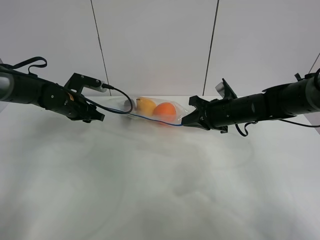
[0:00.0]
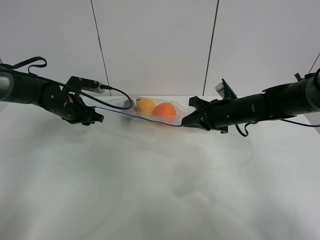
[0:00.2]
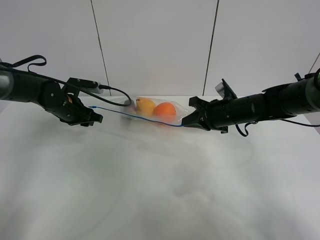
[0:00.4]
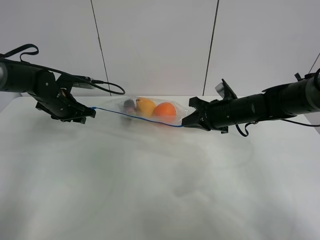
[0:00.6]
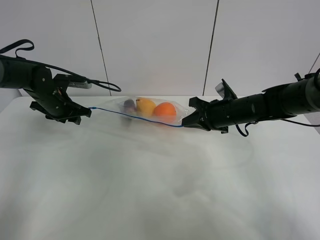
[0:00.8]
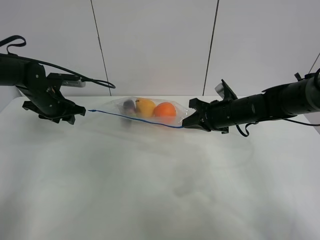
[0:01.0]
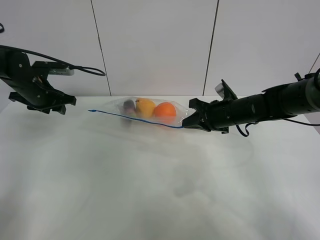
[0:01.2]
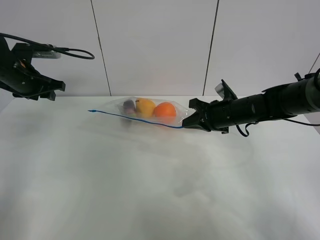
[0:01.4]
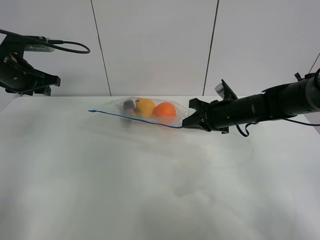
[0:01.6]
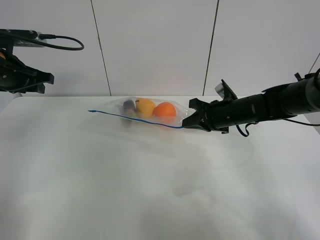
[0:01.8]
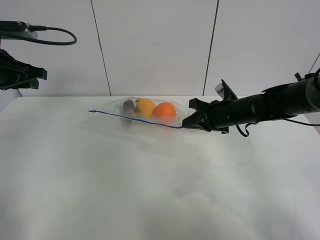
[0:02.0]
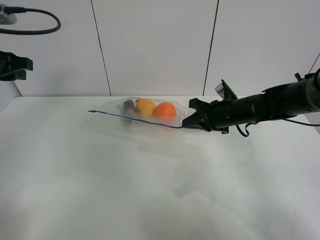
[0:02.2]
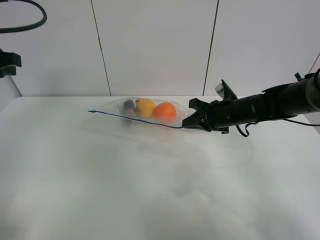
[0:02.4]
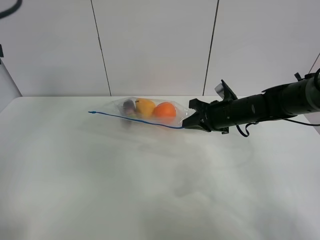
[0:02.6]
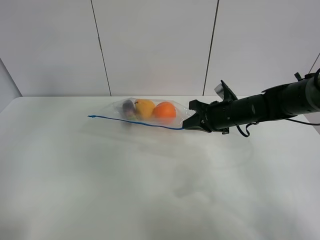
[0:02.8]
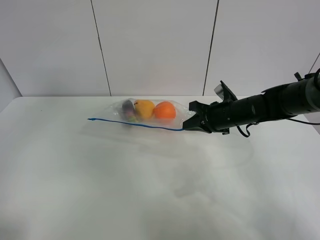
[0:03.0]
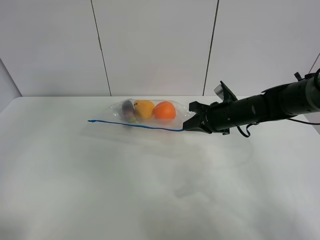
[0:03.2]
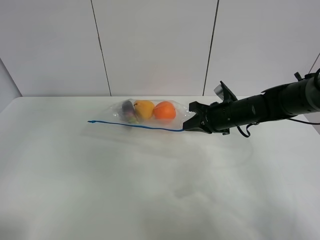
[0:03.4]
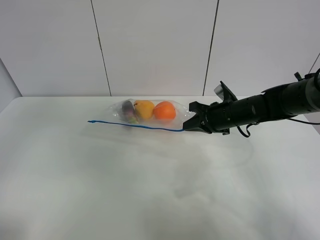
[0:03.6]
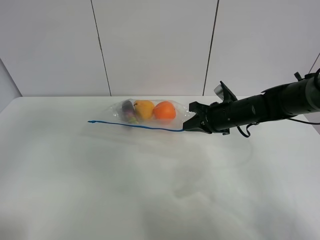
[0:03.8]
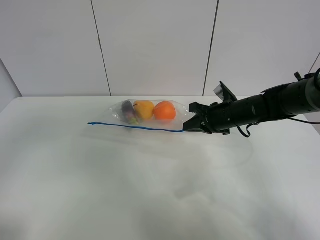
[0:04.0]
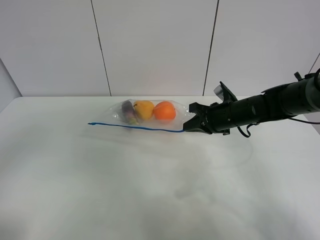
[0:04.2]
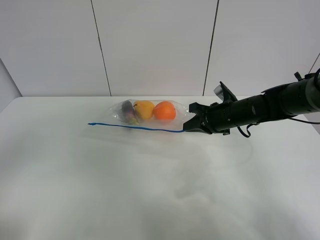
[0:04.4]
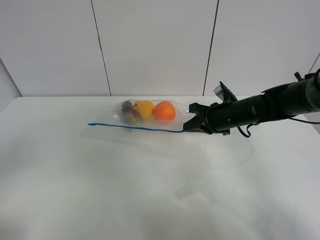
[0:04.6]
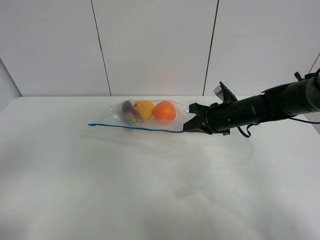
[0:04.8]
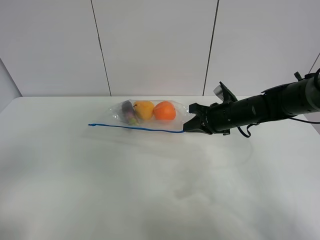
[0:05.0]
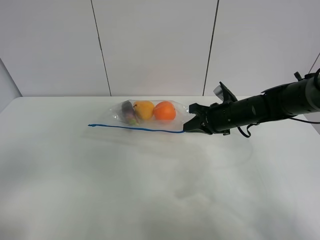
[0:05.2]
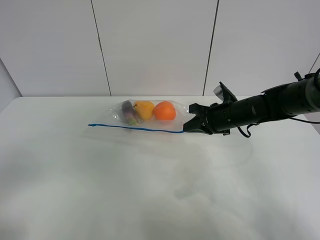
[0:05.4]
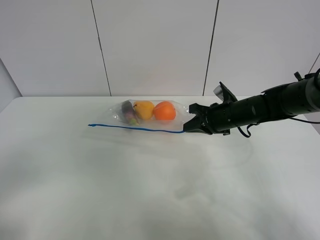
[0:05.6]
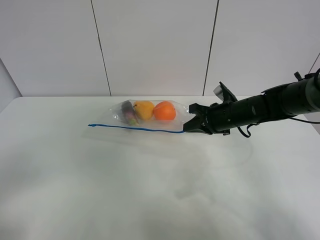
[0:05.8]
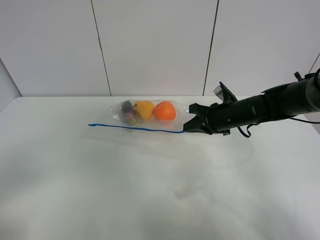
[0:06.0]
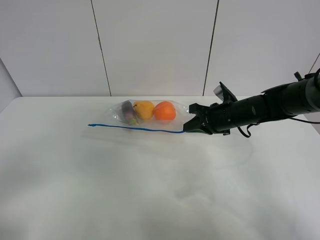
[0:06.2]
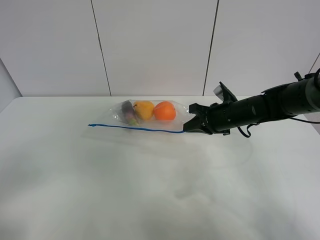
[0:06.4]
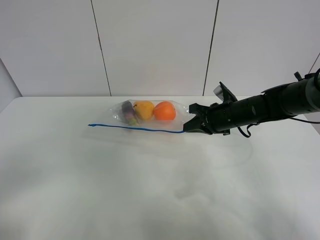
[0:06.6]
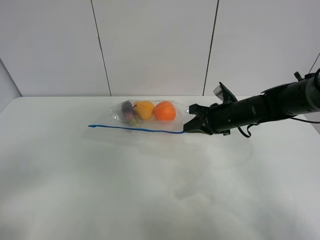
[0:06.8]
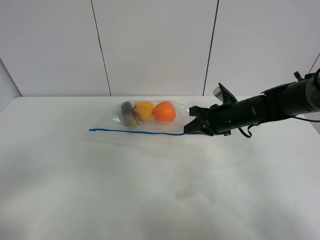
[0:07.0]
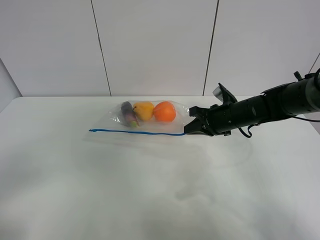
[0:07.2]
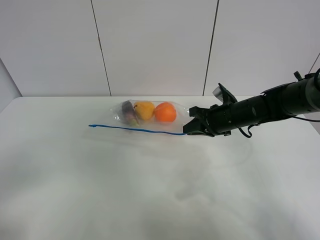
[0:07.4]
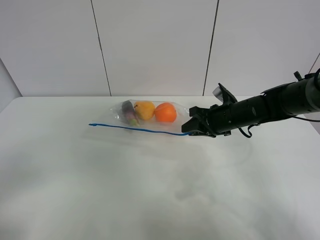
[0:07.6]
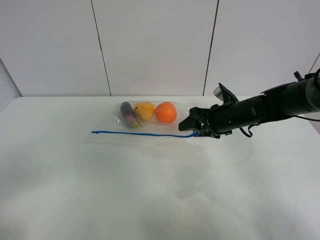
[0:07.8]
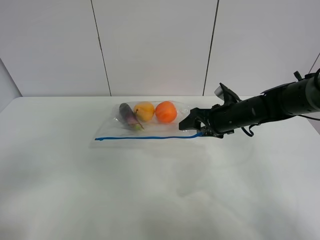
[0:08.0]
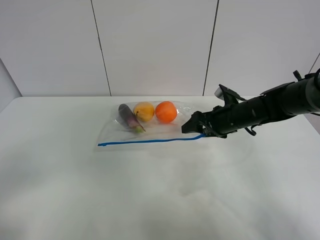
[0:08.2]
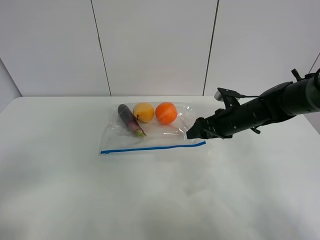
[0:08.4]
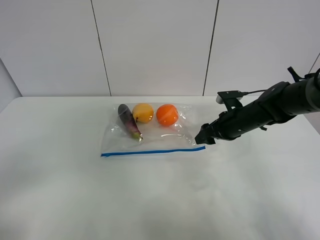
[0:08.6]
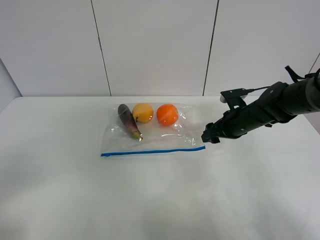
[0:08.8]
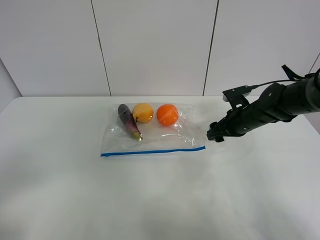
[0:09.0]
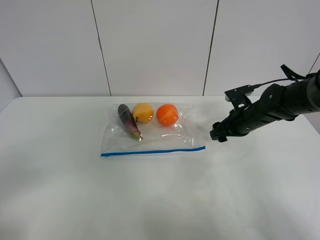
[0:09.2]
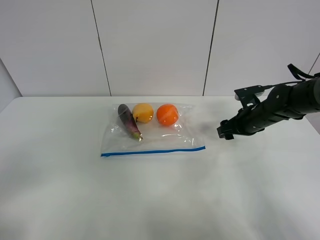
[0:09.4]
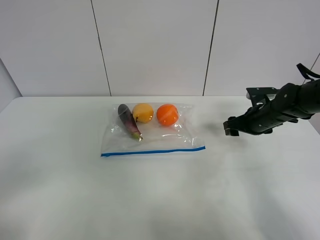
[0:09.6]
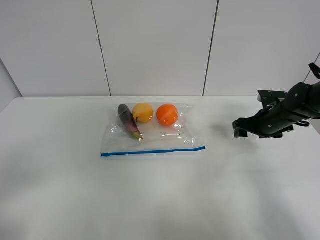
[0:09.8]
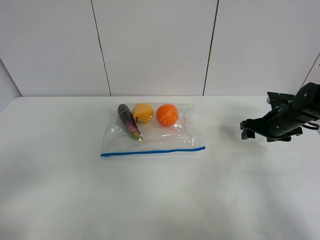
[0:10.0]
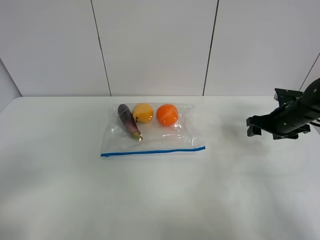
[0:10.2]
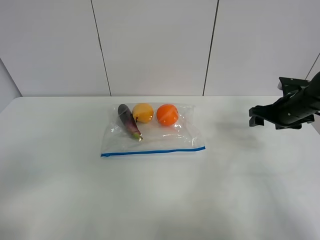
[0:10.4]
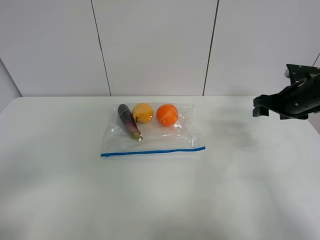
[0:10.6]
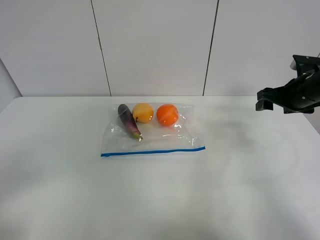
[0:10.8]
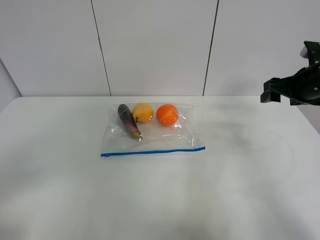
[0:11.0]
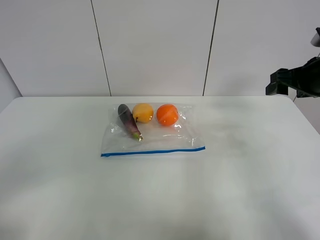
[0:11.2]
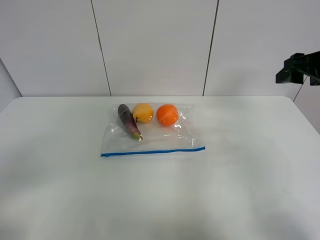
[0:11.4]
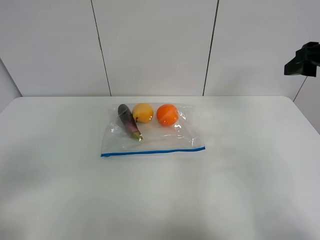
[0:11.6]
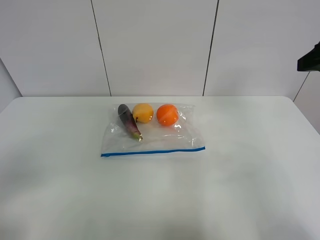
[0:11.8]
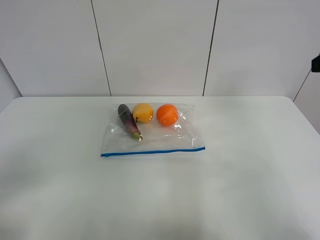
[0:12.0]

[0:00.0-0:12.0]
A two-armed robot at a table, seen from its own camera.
0.0 to 1.6 s: The left gripper is displaced upward and to the left by approximately 15 cm.
1.6 to 3.0 s: The left gripper heads backward and upward, covering about 25 cm.
3.0 to 4.4 s: The left gripper heads backward, covering about 20 cm.
4.4 to 6.0 s: The left gripper is displaced downward by about 5 cm.
6.0 to 7.6 s: The right gripper opens its fingers.
7.6 to 9.0 s: The right gripper opens up.
9.0 to 10.4 s: The right gripper shifts some 10 cm to the right.
10.4 to 12.0 s: The right gripper travels upward and backward by about 25 cm.

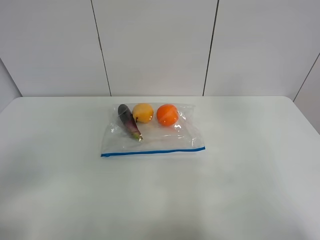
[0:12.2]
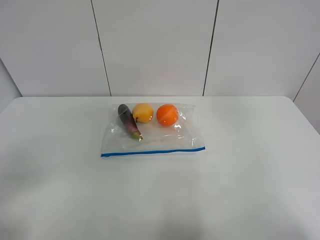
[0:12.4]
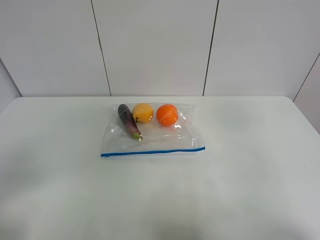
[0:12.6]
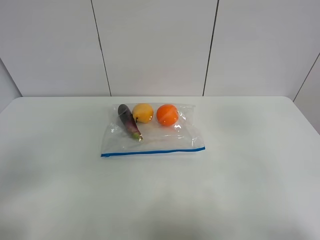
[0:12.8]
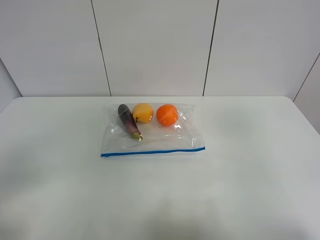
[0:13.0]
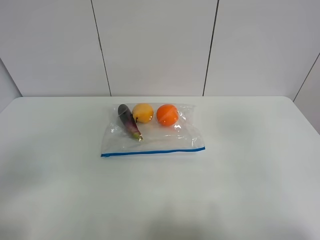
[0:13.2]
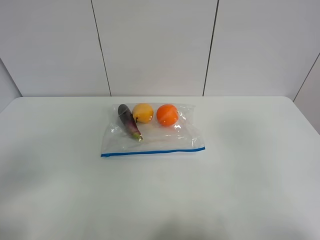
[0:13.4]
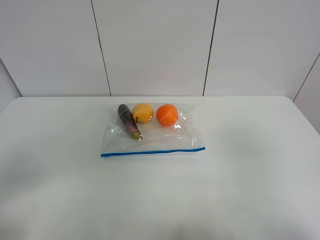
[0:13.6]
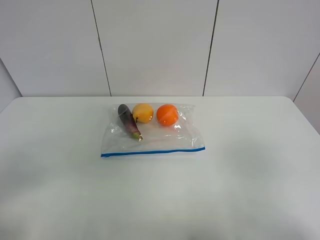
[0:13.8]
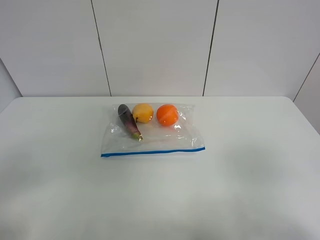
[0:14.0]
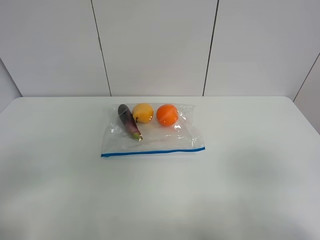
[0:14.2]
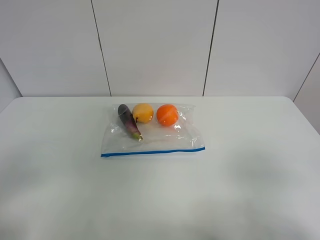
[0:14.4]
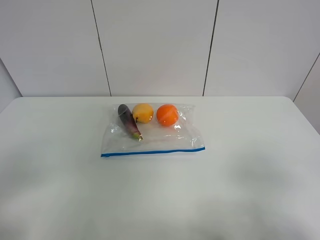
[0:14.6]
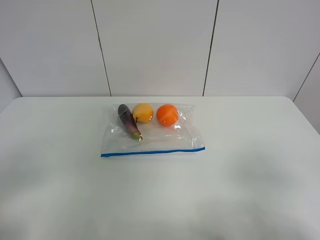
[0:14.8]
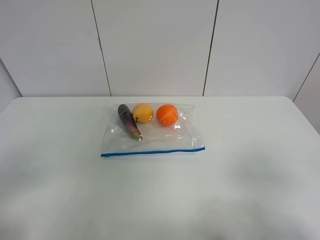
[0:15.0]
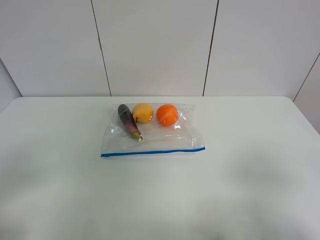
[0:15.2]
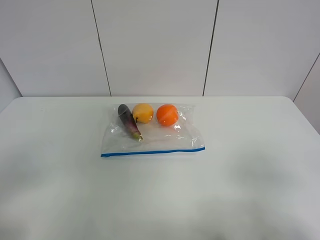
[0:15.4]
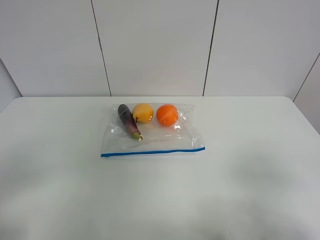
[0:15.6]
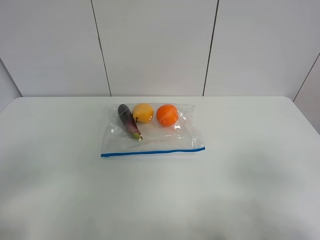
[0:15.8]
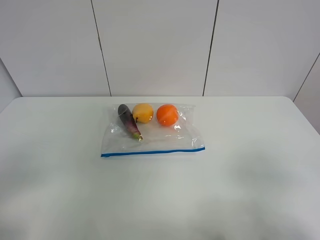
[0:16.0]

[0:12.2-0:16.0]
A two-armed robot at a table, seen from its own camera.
14.8 to 16.0 s: Neither gripper changes place.

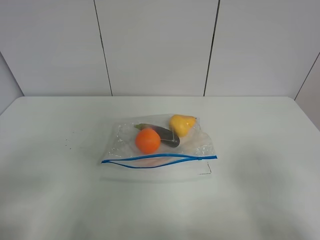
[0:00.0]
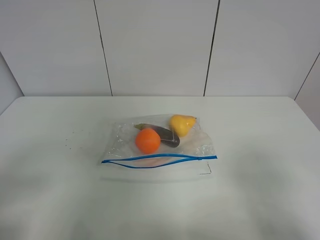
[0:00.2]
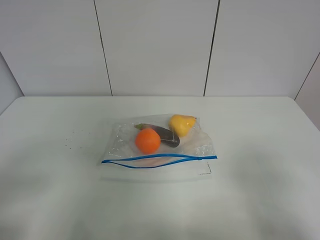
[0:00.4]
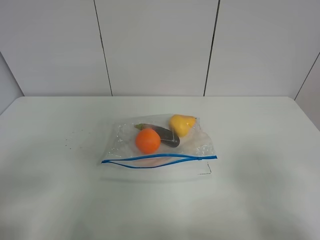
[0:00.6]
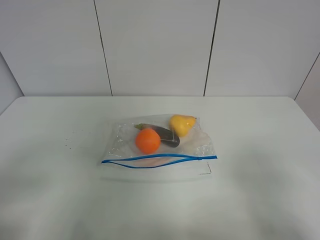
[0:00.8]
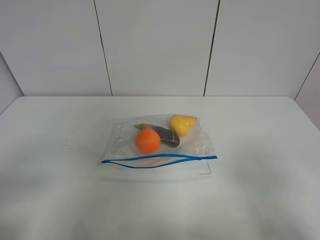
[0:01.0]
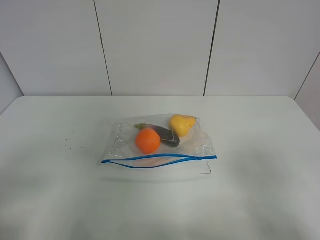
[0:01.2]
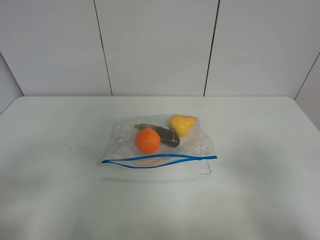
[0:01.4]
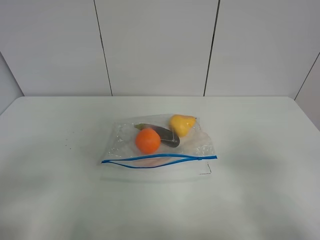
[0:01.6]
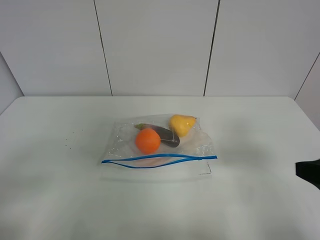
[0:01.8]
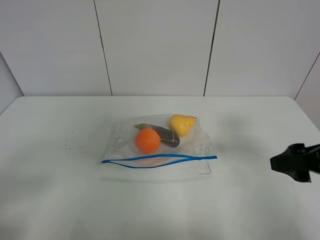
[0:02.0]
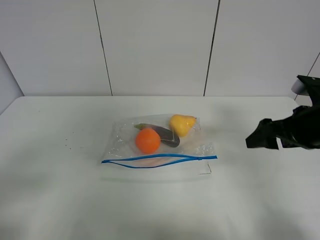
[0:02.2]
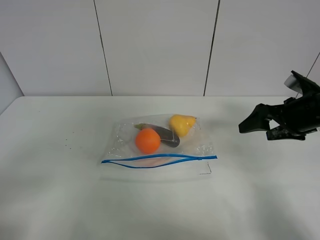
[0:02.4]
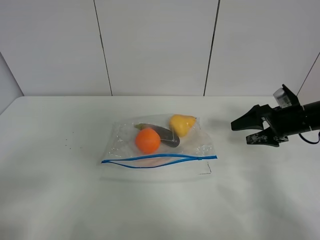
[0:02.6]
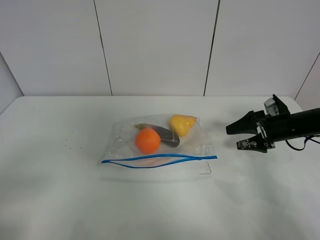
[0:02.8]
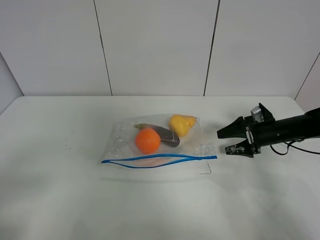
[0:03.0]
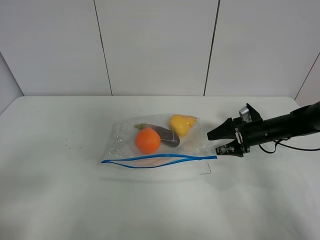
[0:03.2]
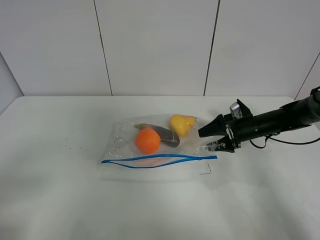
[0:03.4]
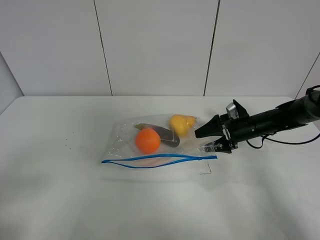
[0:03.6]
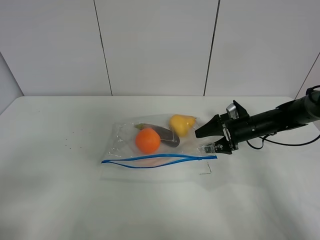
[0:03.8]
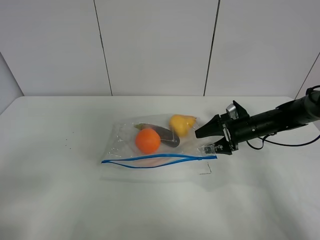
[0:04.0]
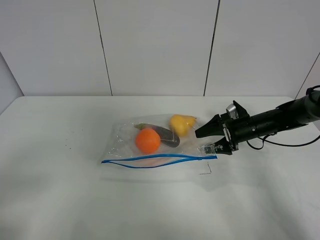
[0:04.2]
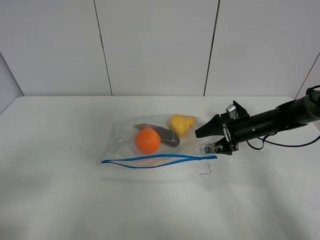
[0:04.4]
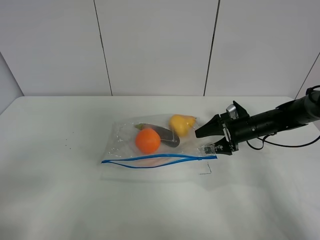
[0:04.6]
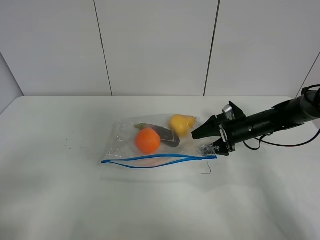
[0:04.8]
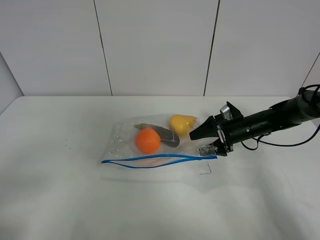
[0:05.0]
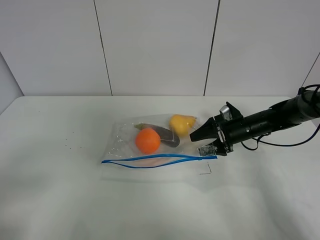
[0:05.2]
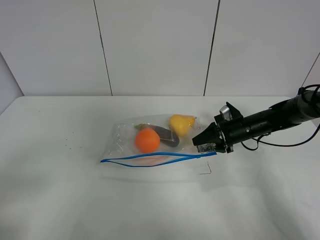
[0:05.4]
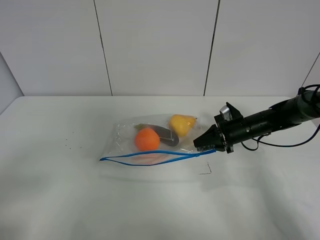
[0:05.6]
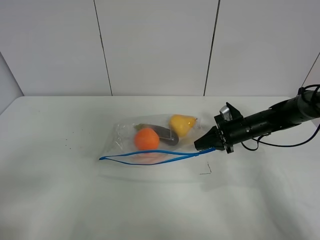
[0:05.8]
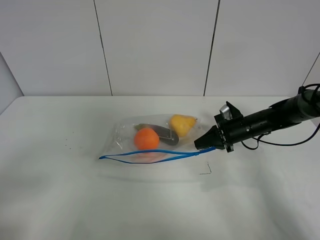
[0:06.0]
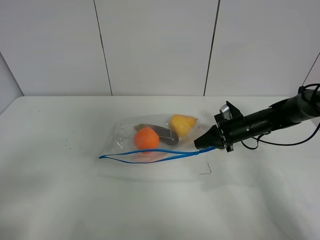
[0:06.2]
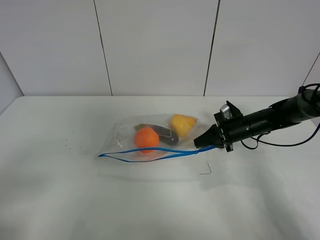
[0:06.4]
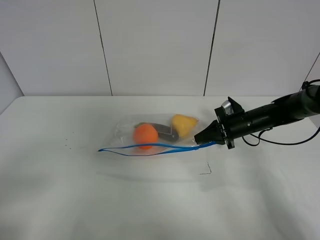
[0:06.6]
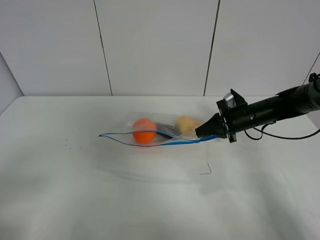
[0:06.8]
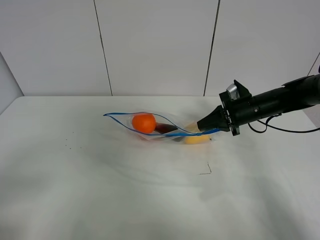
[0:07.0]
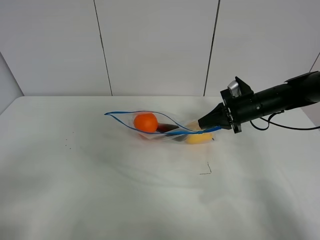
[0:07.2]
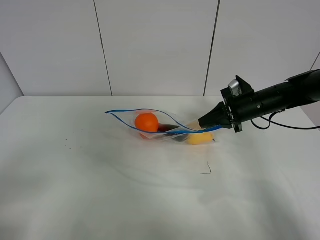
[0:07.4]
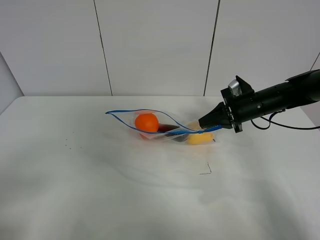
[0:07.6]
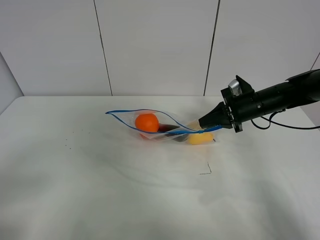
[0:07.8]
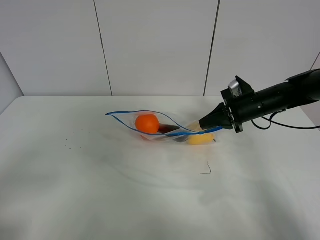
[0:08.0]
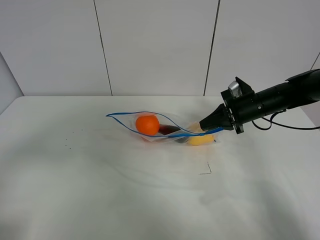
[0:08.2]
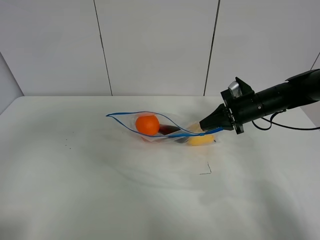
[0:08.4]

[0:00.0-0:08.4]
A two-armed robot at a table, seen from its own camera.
Step, 0.0 to 5.8 s: Grasp the fruit bag with right gripper.
Step, 6.0 to 7.4 s: Lift the fruit bag with your right gripper.
1.4 to 2.8 s: The right gripper shifts approximately 35 cm forward and downward.
2.8 to 4.2 s: The right gripper moves to the left, approximately 5 cm.
4.2 to 5.6 s: The right gripper closes its fingers.
5.6 to 7.0 s: The right gripper moves upward, roughly 5 cm.
7.0 to 8.4 s: The left gripper goes some 15 cm forward and upward.
